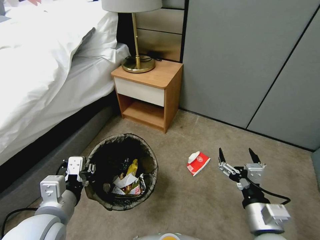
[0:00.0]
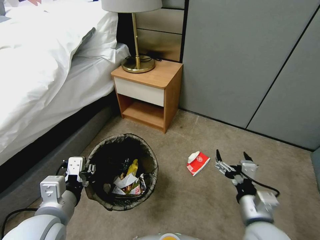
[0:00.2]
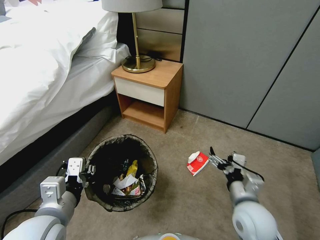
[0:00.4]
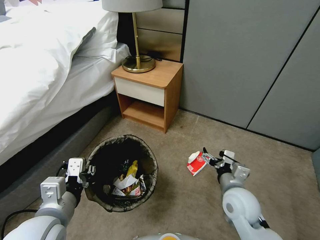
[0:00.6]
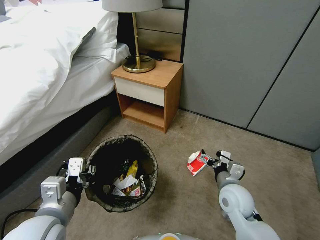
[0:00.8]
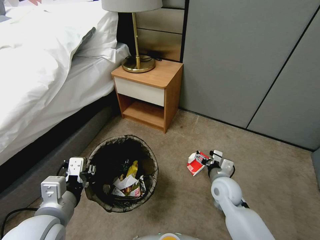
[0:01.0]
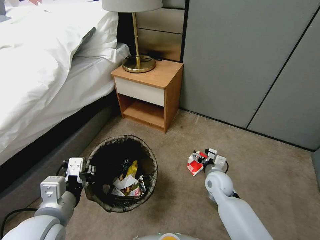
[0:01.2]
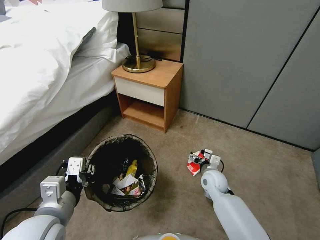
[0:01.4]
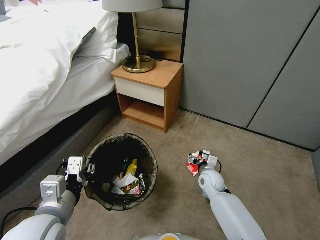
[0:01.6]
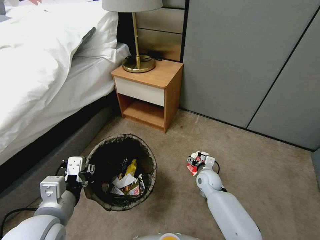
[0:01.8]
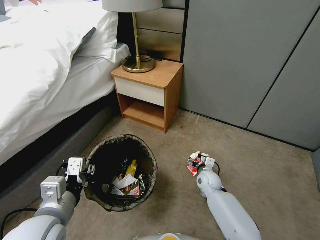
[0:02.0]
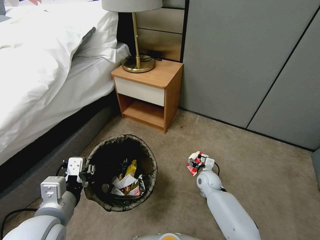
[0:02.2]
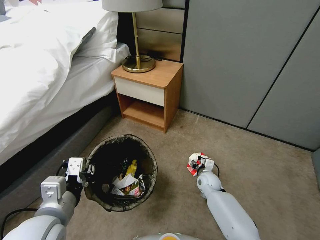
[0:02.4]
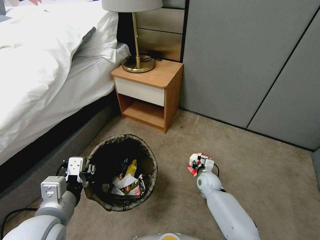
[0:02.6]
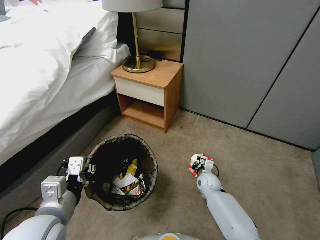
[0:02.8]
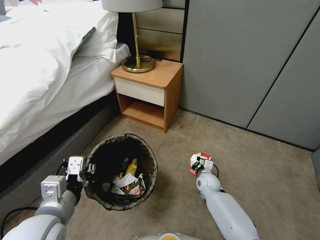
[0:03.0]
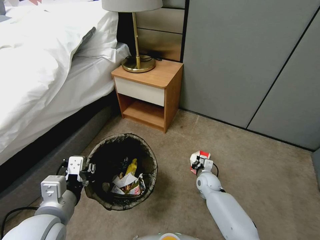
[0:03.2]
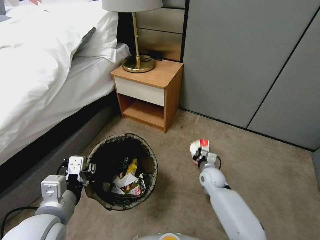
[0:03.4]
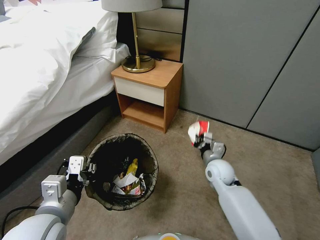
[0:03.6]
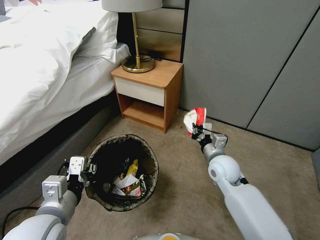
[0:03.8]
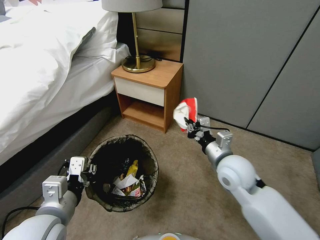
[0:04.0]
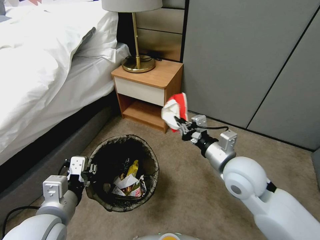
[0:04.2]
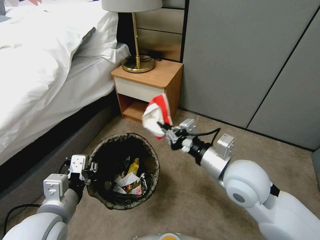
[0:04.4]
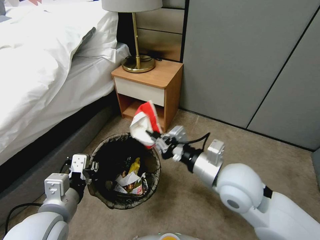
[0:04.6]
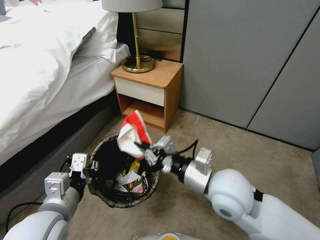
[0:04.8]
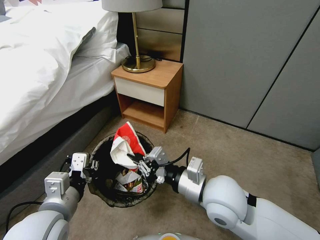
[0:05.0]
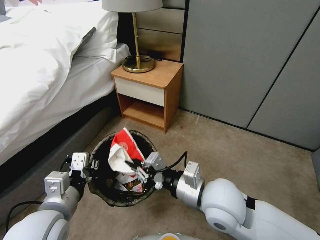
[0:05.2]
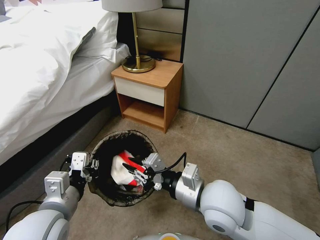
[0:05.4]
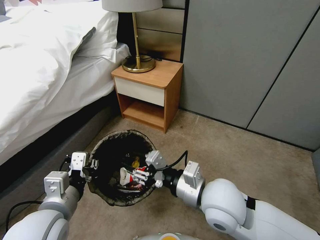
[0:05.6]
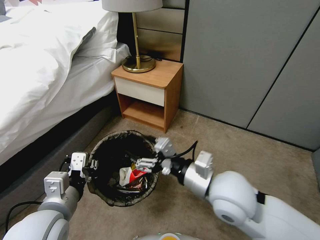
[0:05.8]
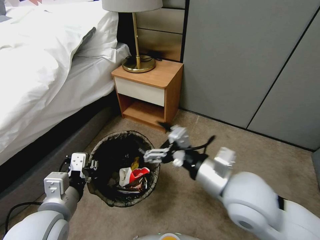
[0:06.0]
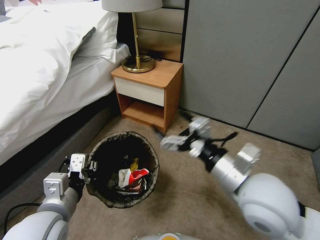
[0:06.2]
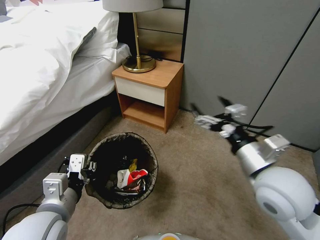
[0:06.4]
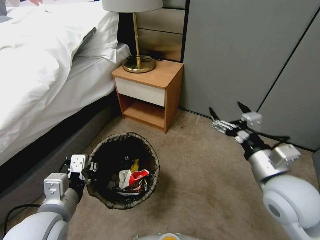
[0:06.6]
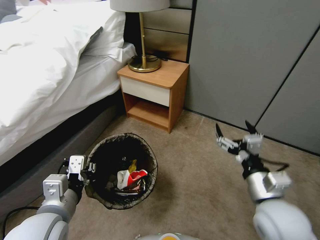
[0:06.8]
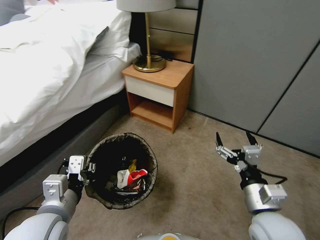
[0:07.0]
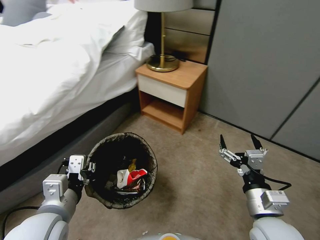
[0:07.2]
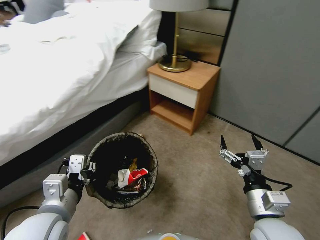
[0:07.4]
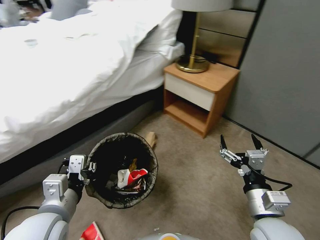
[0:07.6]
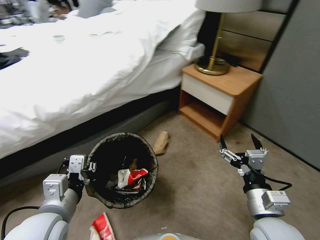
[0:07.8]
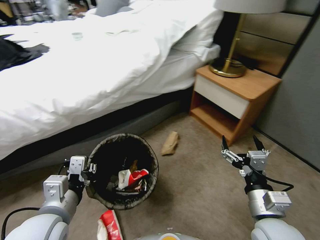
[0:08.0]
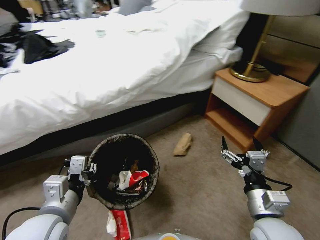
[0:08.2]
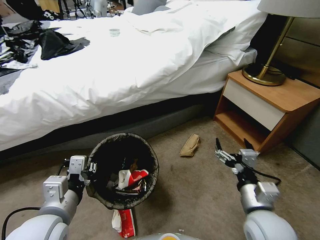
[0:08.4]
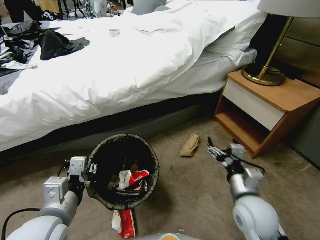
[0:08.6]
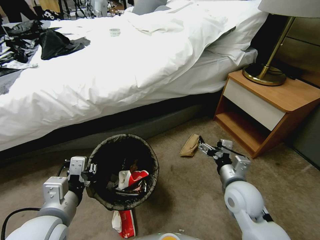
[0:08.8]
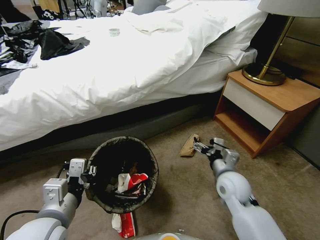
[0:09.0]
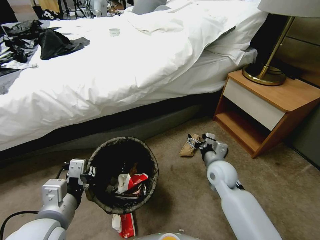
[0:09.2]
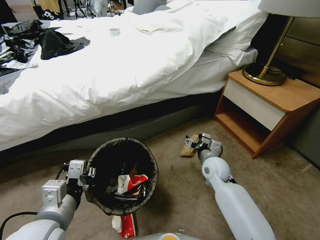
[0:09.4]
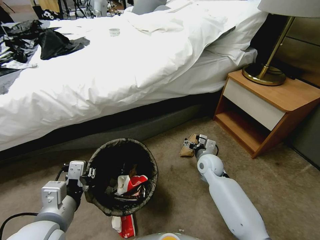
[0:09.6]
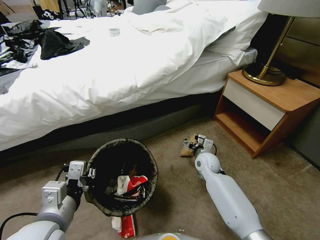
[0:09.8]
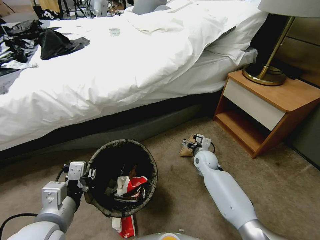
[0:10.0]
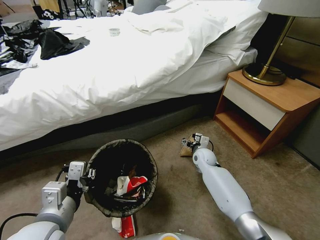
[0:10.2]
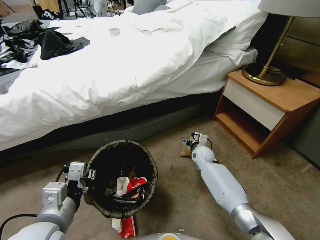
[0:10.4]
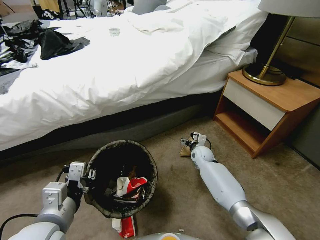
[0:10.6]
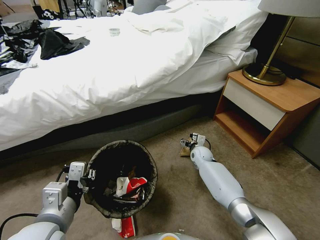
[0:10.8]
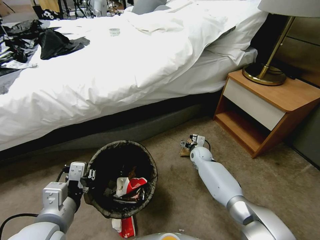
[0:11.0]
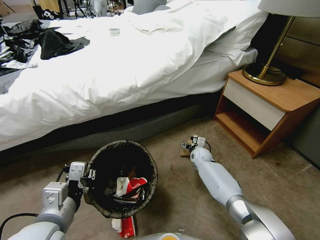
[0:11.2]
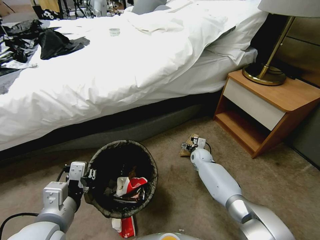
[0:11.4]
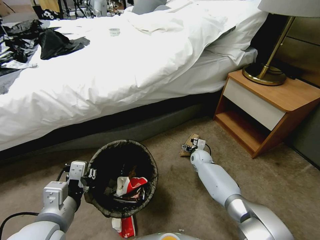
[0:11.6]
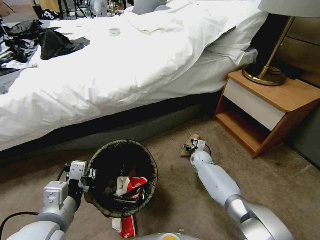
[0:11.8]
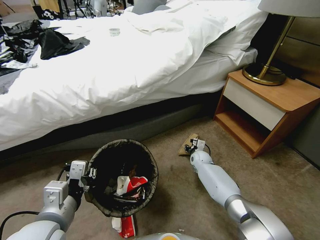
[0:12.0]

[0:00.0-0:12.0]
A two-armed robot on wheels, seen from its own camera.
Task of the whole recording: Pick up the trash bin, then pick up the garbage from the floor and place it into the trash bin.
0:00.0 to 0:01.6: The right gripper is displaced forward and downward by about 30 cm.
0:01.6 to 0:03.0: The right gripper goes about 5 cm downward, and closes its fingers.
0:03.0 to 0:04.4: The right gripper goes about 35 cm upward.
0:04.4 to 0:06.0: The right gripper opens up.
0:06.0 to 0:07.6: The right gripper moves downward, to the right and backward, approximately 15 cm.
0:07.6 to 0:09.0: The right gripper goes about 15 cm forward and downward.
0:09.0 to 0:10.4: The right gripper heads forward and downward, covering approximately 25 cm.
0:10.4 to 0:12.0: The right gripper is displaced downward by roughly 5 cm, and closes.

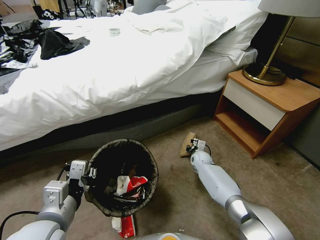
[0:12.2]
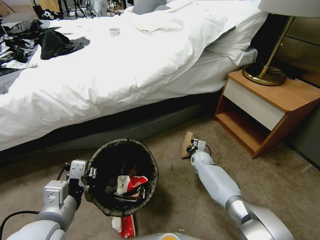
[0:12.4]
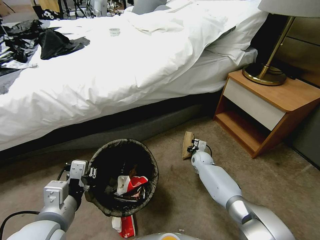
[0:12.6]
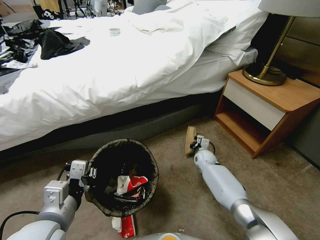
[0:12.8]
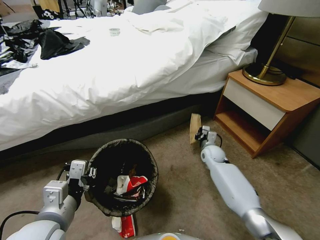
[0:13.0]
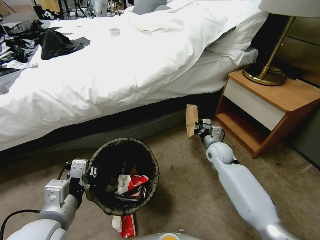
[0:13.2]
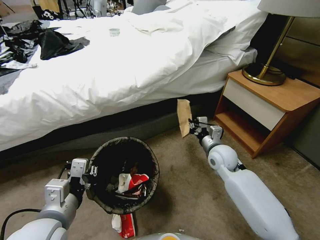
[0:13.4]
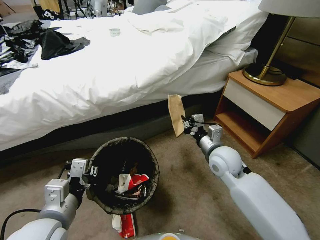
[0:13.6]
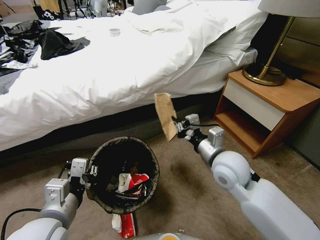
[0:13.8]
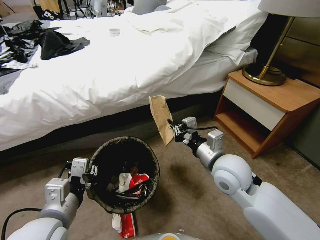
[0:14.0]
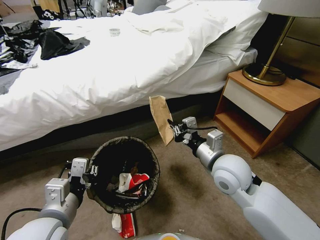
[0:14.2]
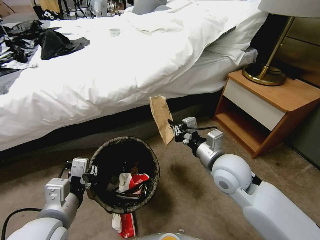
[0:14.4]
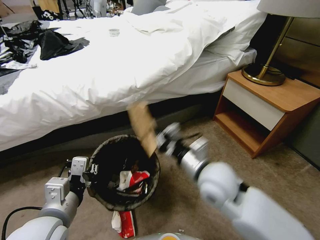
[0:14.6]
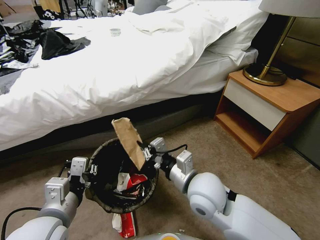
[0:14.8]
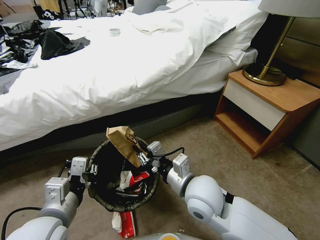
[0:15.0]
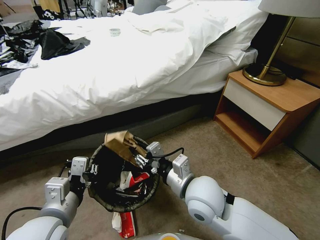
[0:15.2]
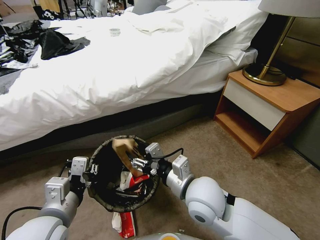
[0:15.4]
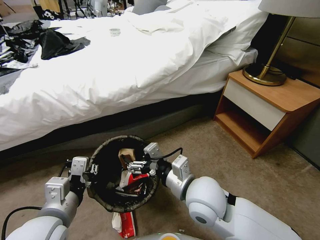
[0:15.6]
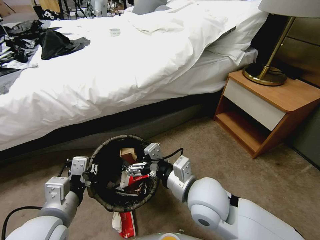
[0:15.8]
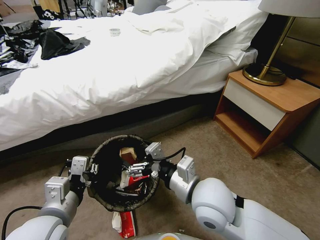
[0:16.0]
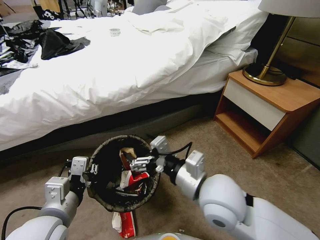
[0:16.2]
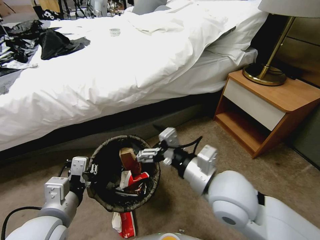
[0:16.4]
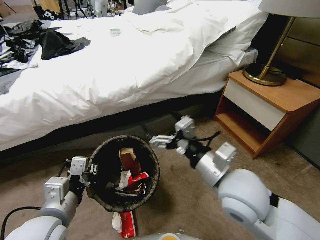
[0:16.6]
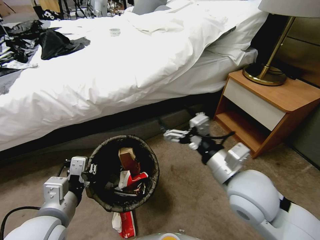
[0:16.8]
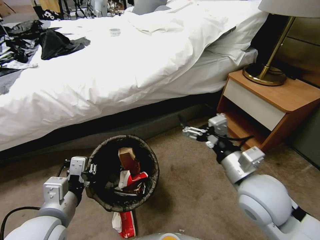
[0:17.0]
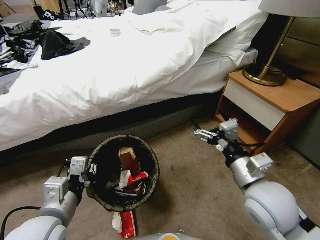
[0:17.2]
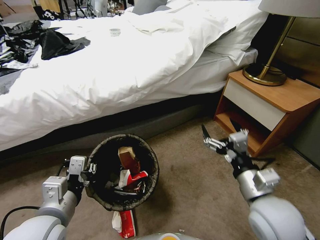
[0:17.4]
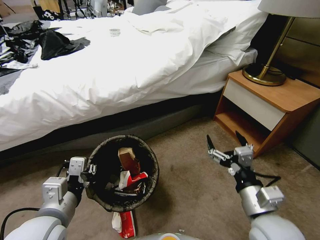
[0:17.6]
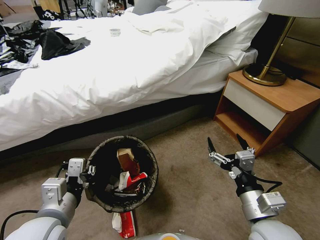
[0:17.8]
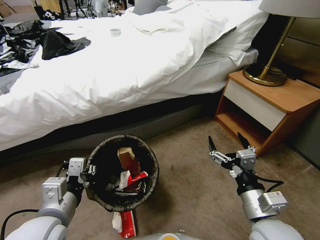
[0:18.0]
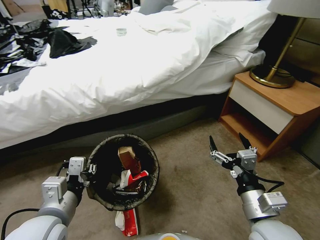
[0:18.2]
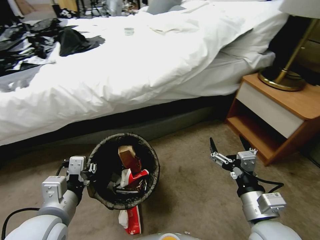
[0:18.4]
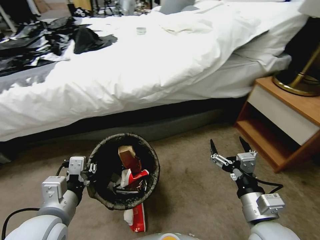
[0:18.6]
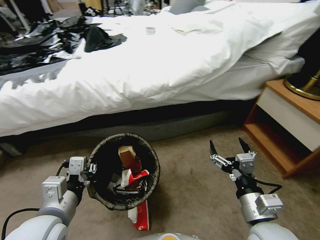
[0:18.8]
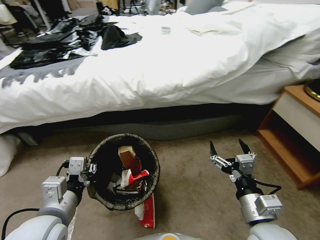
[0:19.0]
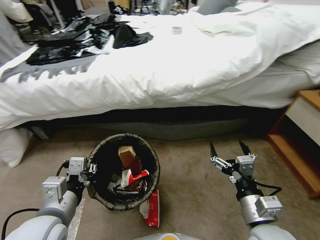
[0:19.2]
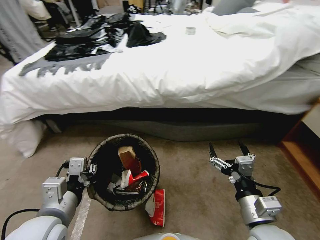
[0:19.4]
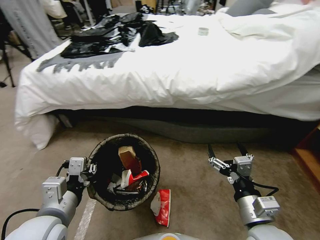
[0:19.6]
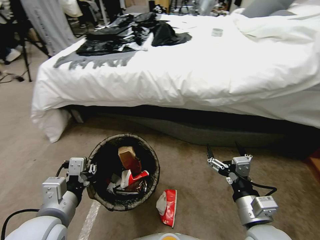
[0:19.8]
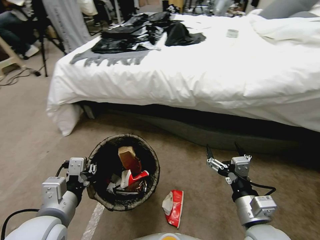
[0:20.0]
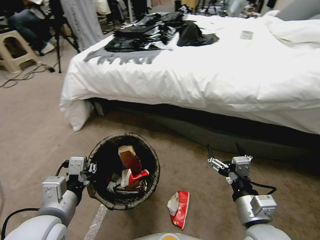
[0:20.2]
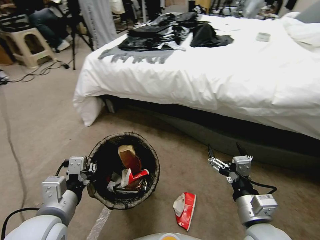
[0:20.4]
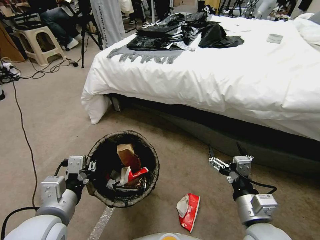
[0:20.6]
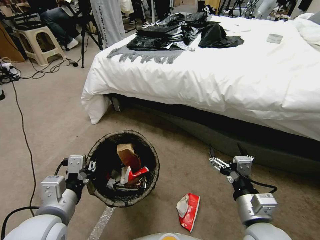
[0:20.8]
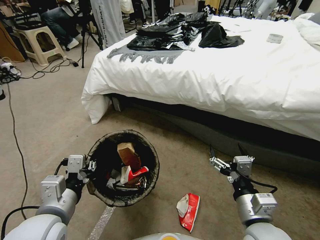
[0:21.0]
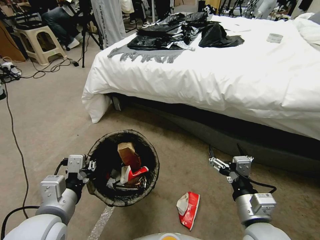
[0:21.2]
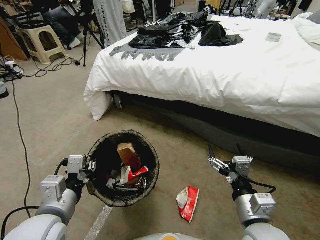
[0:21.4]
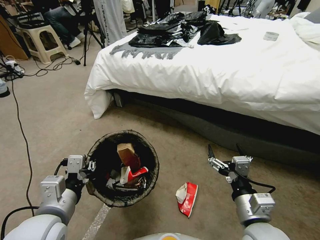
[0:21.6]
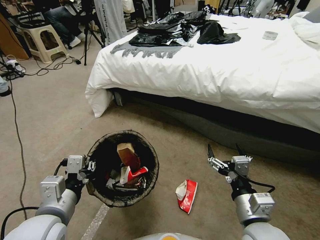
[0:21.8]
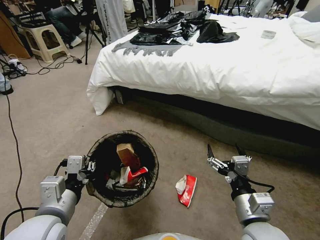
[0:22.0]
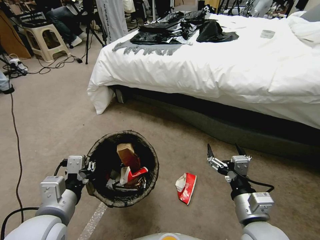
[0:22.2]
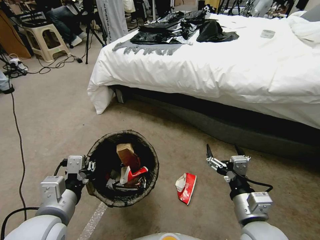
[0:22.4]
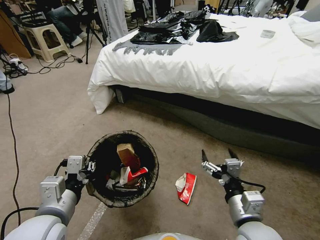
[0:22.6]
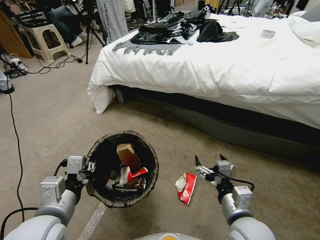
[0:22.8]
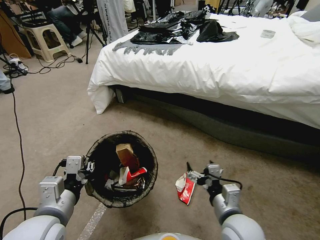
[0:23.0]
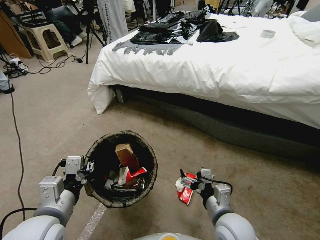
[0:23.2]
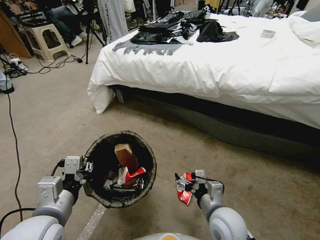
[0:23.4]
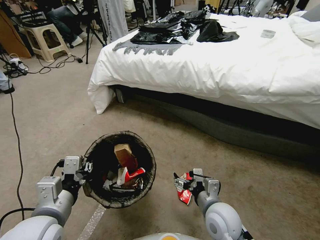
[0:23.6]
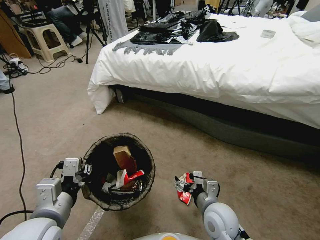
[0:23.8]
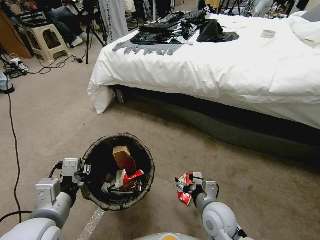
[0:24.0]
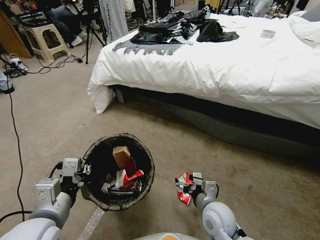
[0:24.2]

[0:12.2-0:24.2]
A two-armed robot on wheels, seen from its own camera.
Task of the whole recording: Pick up the trash bin, then pick up the garbage from the floor and place it into the trash bin.
0:12.2 to 0:13.8: The right gripper heads upward and backward, covering about 35 cm.
0:13.8 to 0:15.2: The right gripper heads to the left and backward, covering some 10 cm, and opens its fingers.
0:15.2 to 0:16.6: The right gripper travels upward and to the right by some 10 cm, and opens up.
0:16.6 to 0:18.2: The right gripper moves downward, to the right and backward, some 15 cm.
0:22.6 to 0:24.2: The right gripper heads downward, forward and to the left, covering roughly 15 cm.
